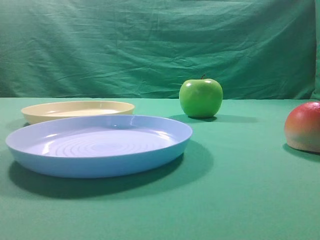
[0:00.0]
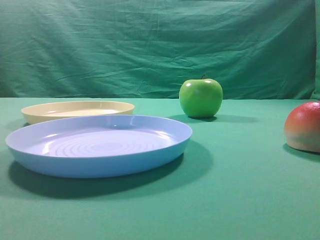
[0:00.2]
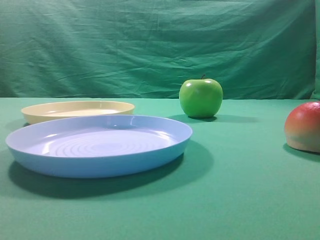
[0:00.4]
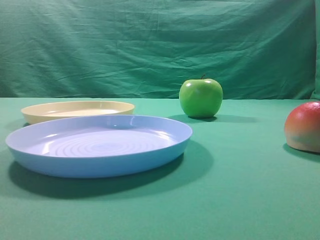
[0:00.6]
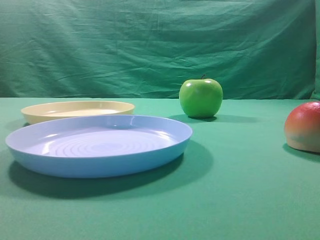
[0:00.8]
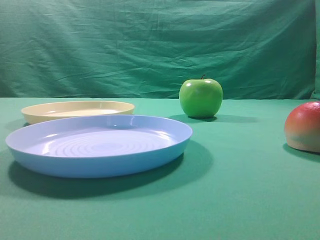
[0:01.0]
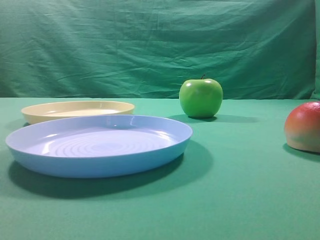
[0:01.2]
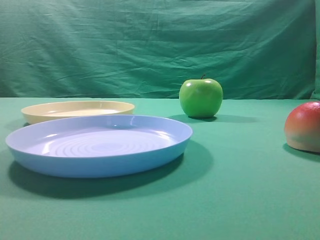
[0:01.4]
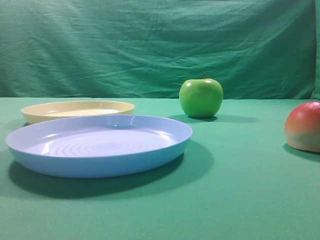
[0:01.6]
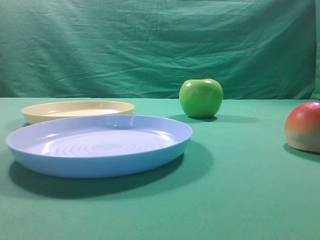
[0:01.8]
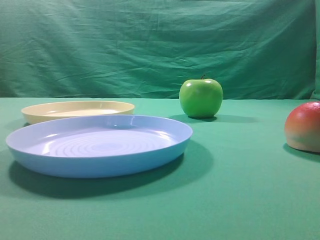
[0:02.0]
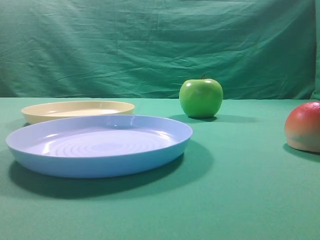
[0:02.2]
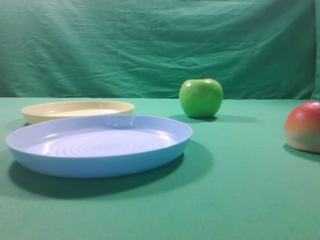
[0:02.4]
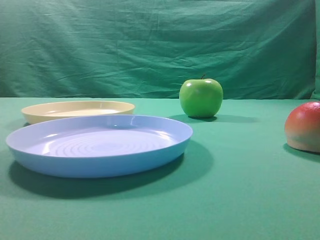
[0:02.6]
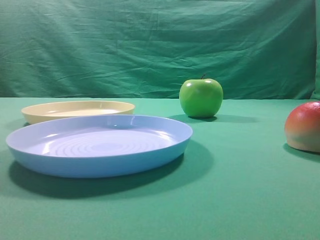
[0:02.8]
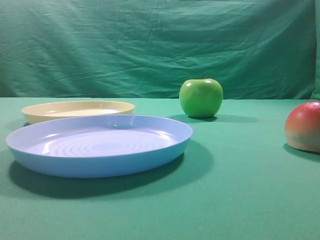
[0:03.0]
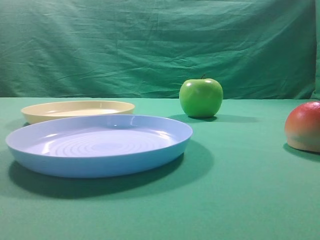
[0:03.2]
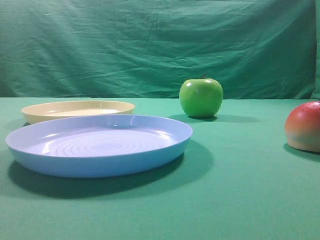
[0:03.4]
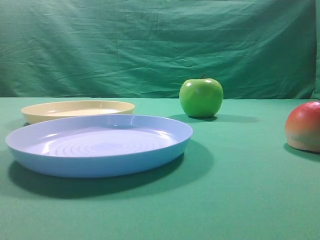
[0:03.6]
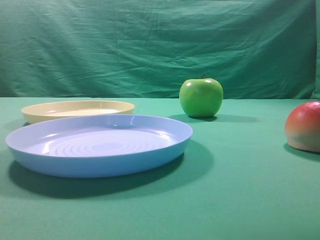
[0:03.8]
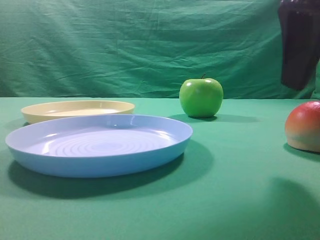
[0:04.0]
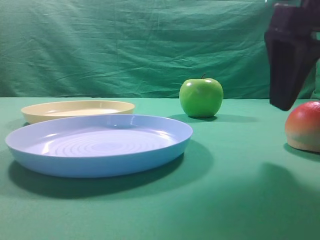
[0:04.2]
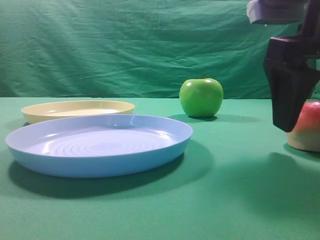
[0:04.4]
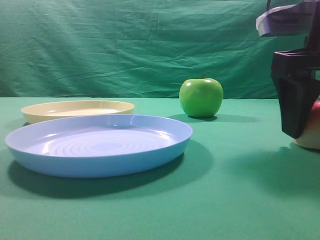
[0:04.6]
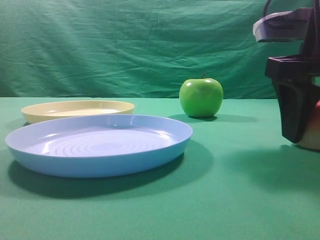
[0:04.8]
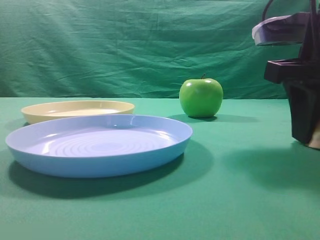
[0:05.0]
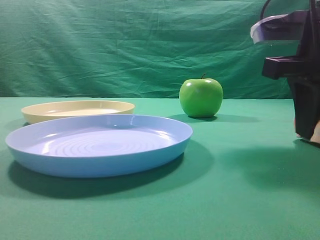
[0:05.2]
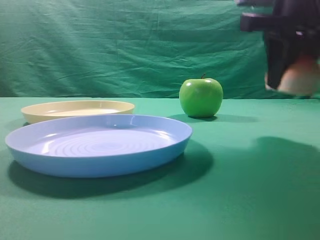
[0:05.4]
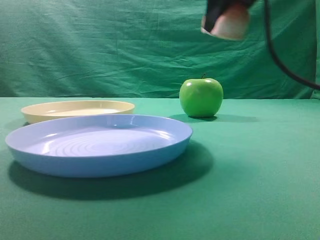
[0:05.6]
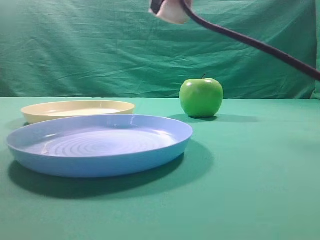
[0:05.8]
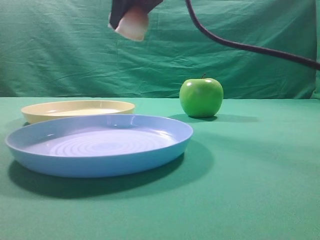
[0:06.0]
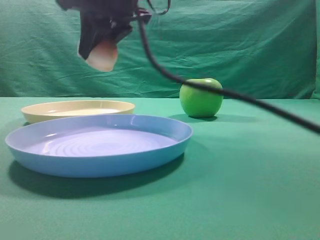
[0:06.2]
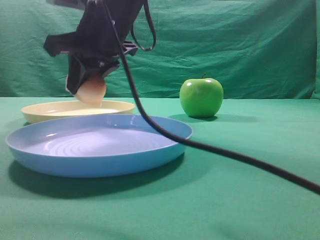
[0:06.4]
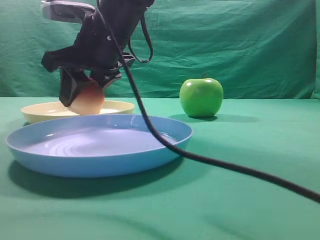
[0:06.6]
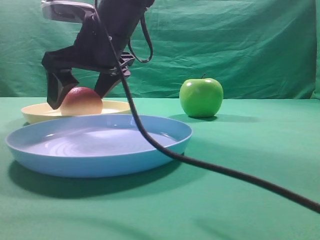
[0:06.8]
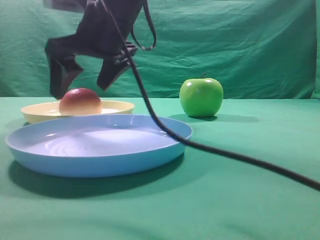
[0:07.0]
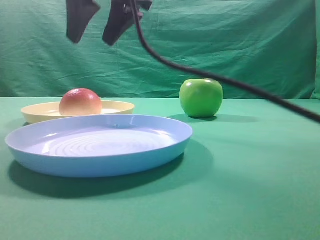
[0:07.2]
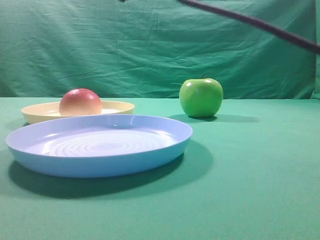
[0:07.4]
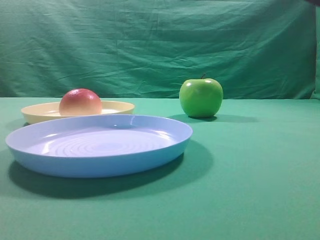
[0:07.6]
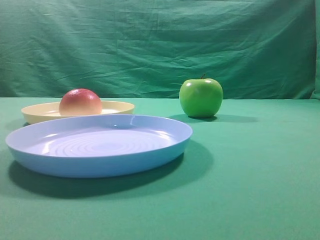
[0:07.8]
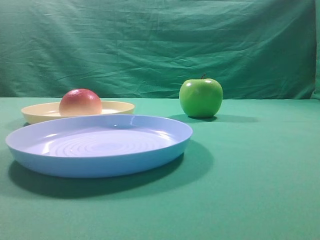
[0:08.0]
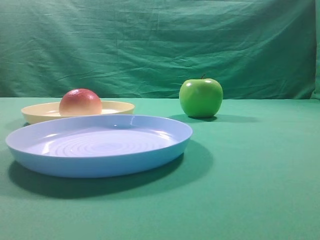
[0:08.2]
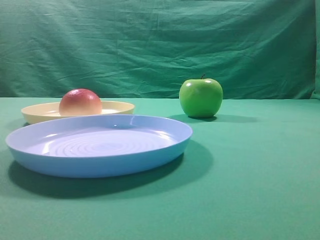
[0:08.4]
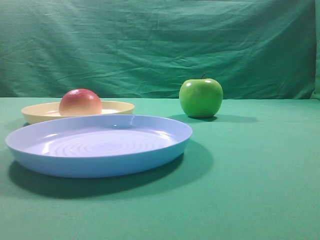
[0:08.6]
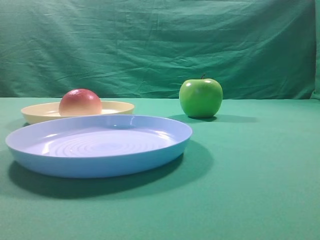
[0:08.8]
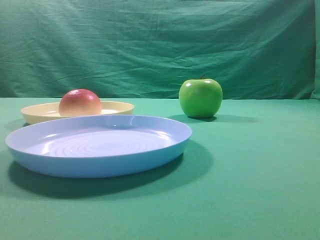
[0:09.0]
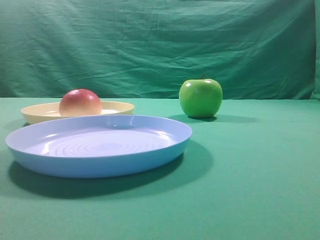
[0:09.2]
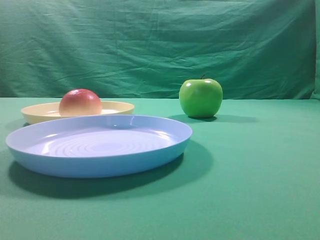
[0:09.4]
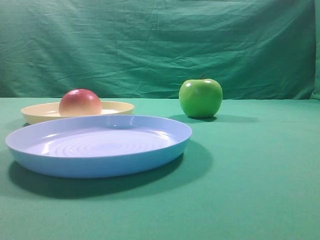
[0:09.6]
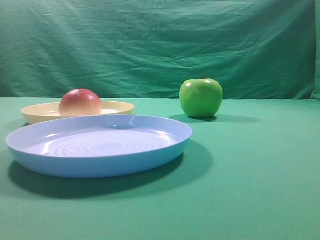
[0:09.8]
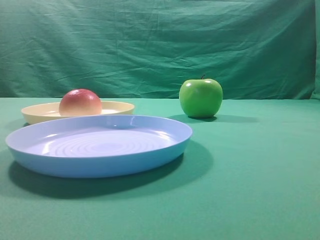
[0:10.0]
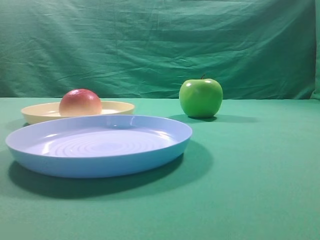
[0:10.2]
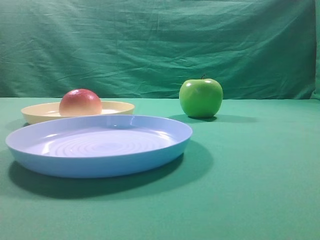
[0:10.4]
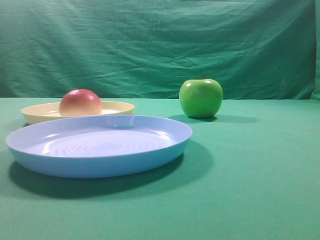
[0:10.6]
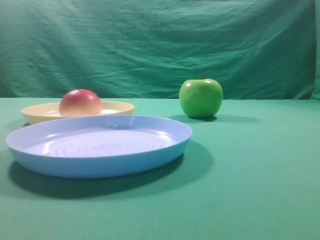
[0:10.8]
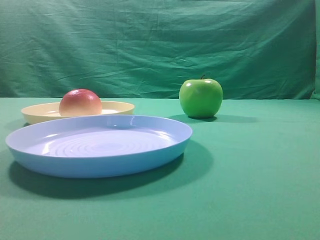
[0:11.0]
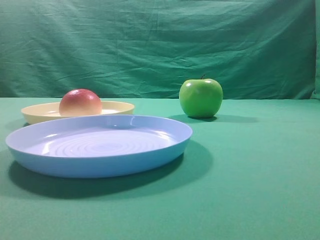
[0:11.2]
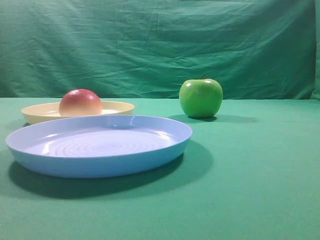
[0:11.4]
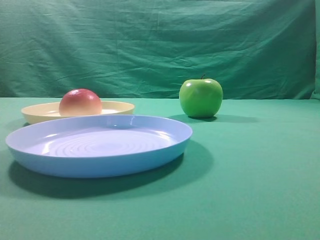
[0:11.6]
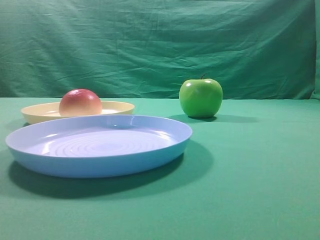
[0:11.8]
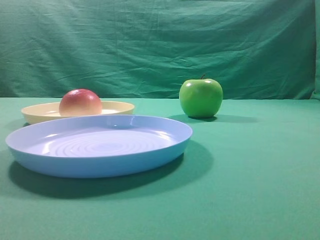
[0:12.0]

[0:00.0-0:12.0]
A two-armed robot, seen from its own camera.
Step, 0:05.4 to 0:07.0: Place the picked object on the yellow plate.

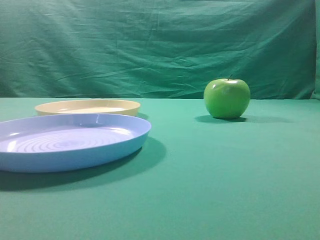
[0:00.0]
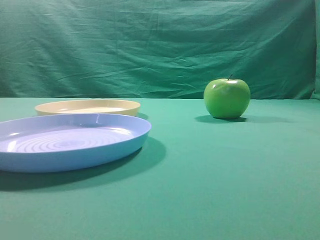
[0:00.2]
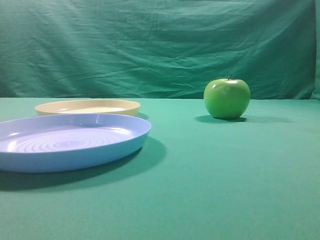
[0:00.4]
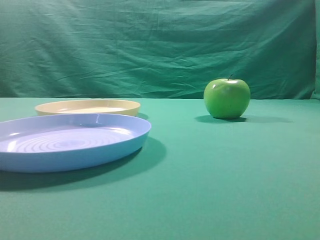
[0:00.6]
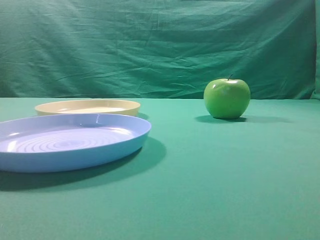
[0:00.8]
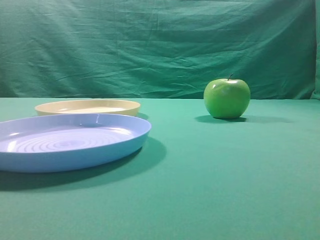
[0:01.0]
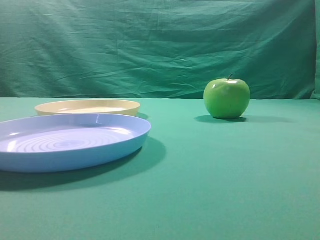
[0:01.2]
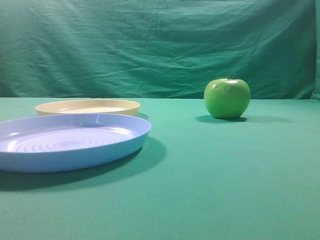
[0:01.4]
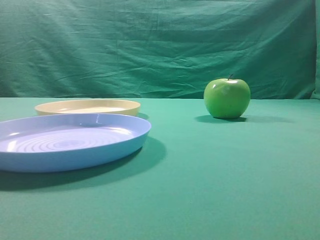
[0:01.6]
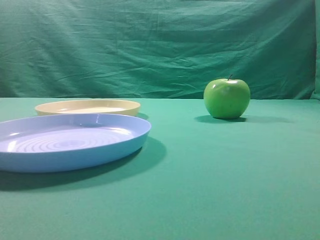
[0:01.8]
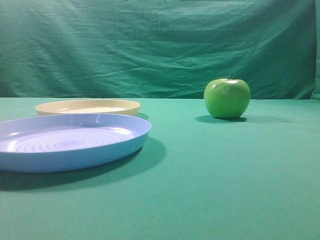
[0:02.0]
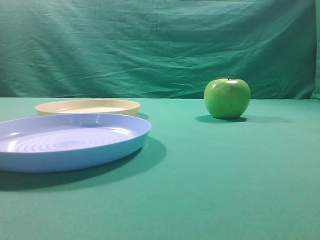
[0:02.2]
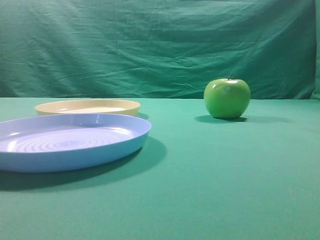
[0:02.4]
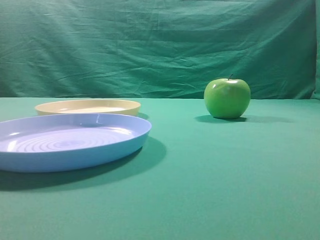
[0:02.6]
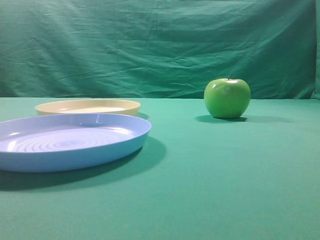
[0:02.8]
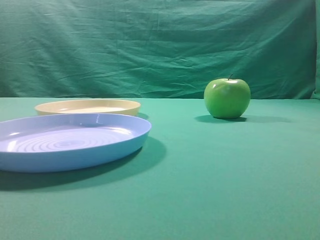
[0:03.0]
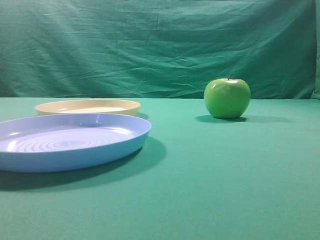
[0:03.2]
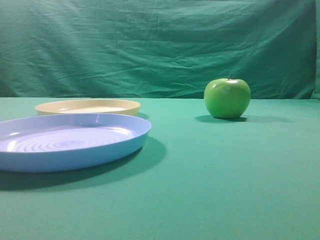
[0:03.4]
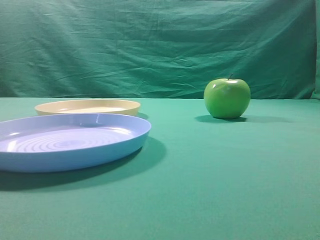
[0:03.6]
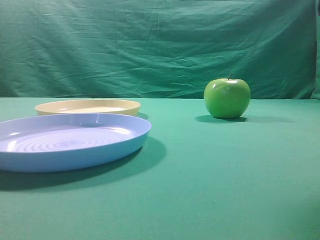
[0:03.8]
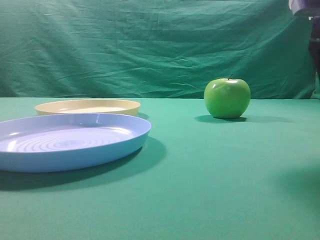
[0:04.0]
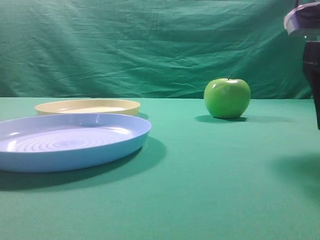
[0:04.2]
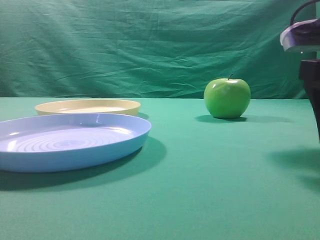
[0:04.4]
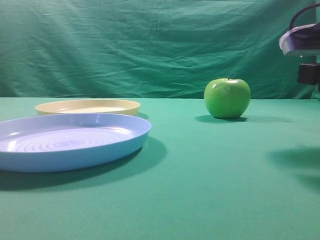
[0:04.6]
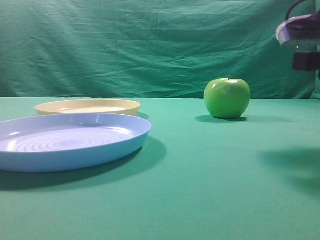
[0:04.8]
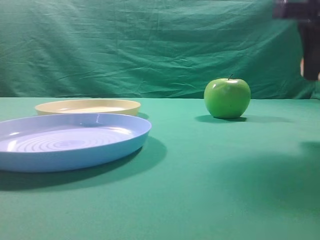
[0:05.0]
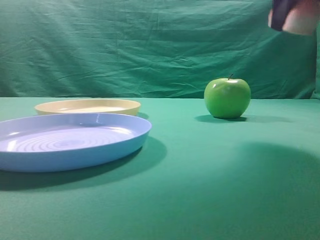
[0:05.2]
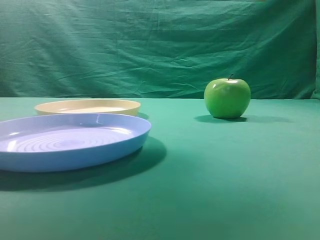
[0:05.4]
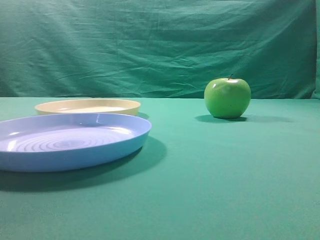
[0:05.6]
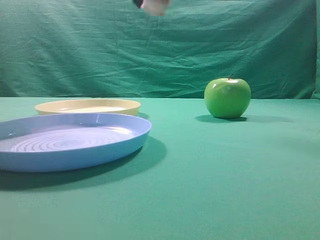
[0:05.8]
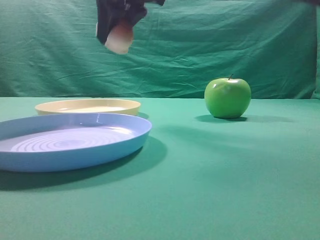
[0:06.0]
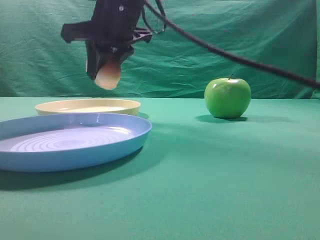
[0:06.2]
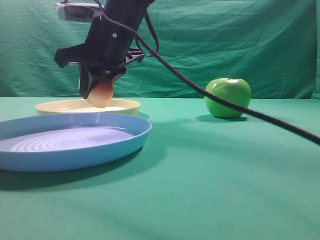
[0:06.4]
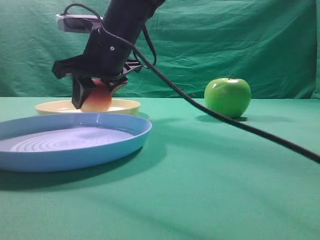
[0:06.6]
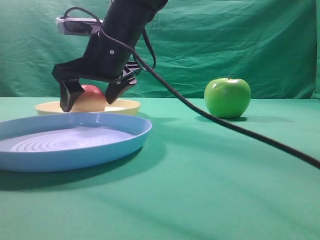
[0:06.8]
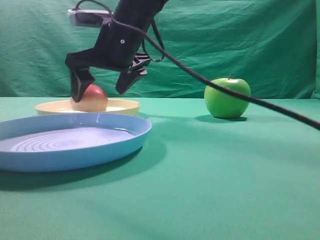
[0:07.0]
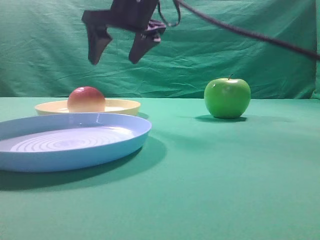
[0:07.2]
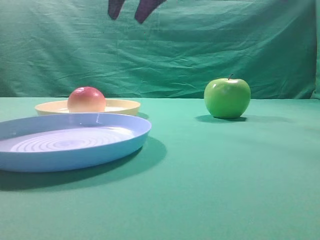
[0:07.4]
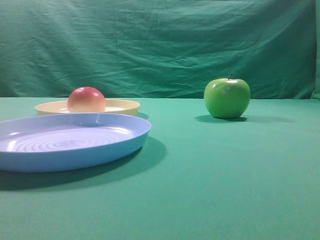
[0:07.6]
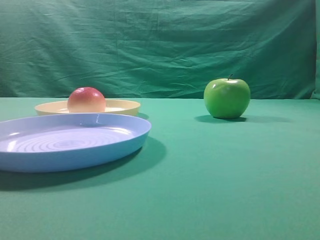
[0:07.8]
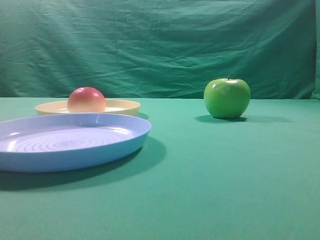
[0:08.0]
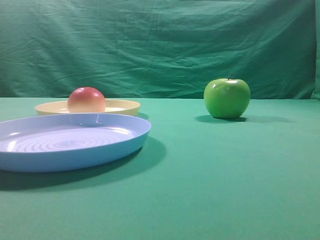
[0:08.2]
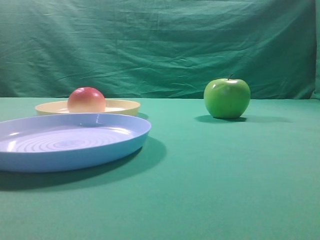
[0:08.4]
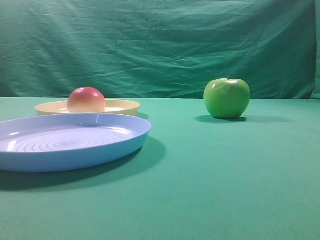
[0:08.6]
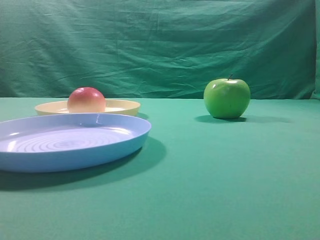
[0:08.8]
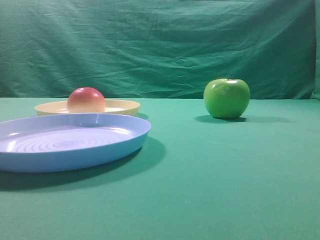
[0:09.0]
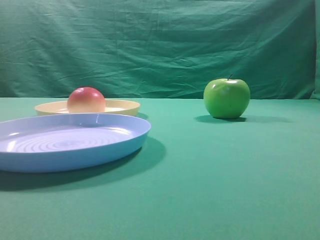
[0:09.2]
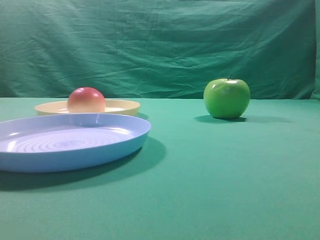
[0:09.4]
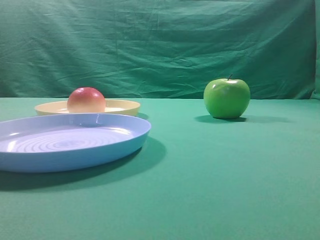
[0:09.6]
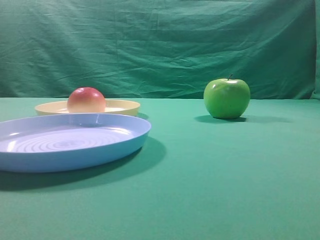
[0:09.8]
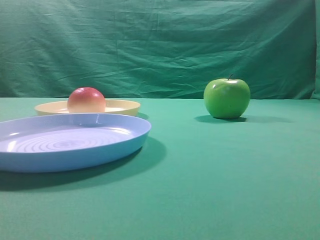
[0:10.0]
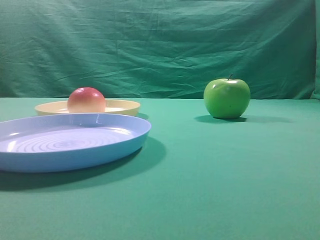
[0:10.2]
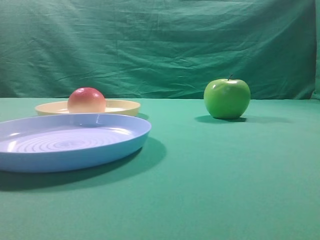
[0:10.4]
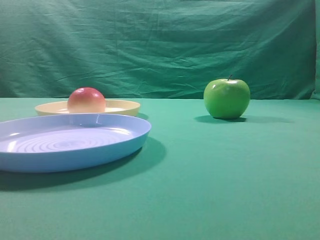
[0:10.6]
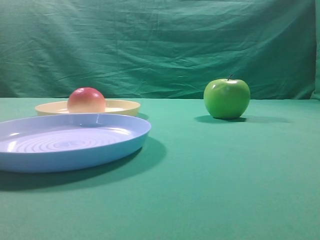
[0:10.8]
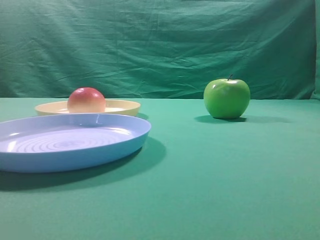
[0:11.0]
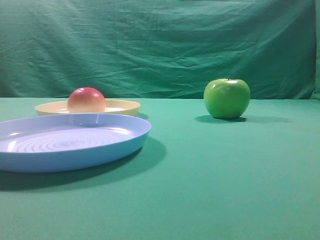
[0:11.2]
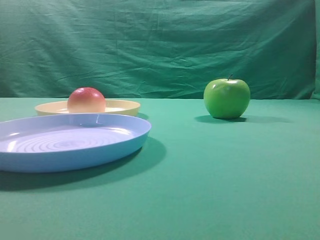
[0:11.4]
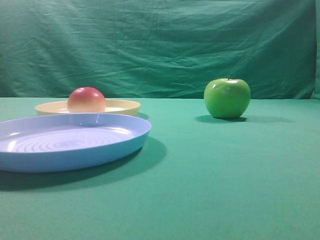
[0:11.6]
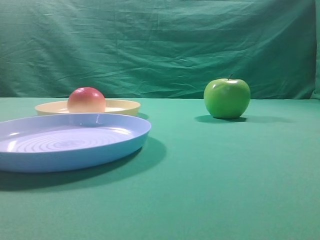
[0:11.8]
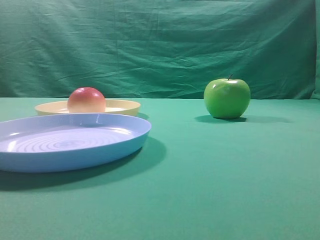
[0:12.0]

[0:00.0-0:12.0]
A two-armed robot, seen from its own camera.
Step, 0:05.0 to 0:07.0: Place the picked object on the yellow plate.
